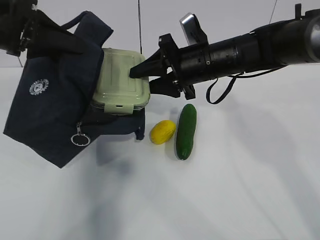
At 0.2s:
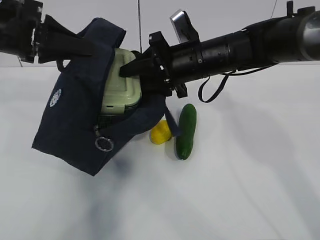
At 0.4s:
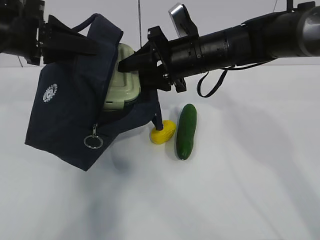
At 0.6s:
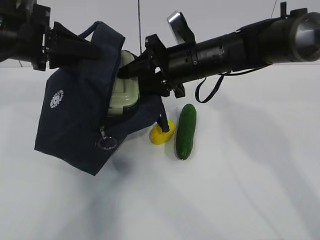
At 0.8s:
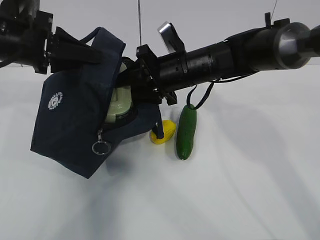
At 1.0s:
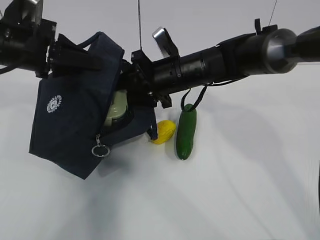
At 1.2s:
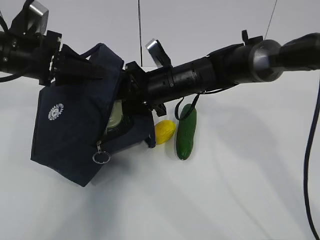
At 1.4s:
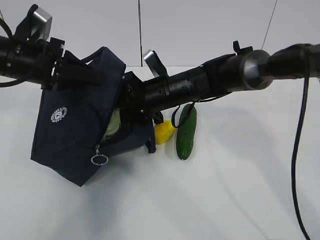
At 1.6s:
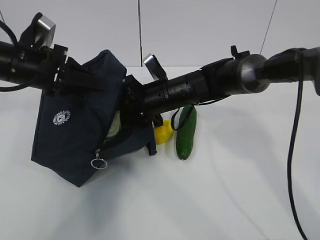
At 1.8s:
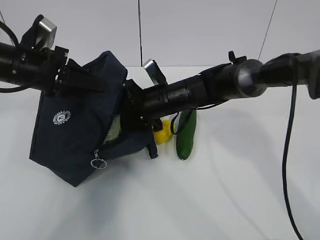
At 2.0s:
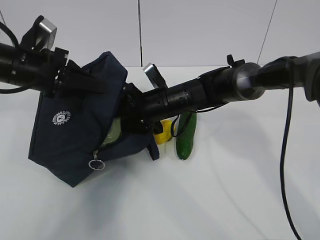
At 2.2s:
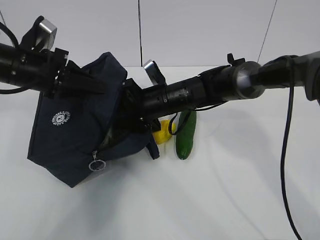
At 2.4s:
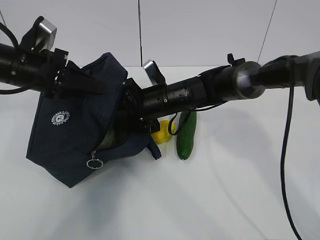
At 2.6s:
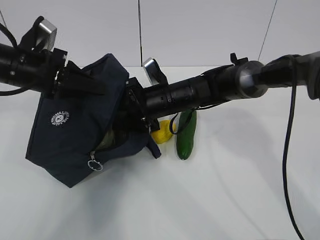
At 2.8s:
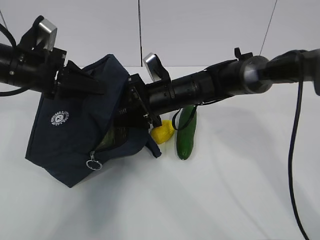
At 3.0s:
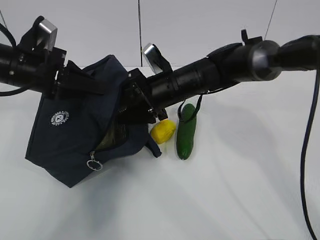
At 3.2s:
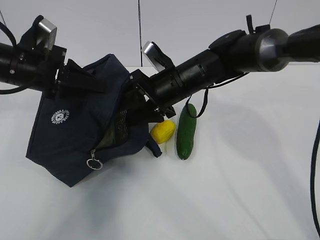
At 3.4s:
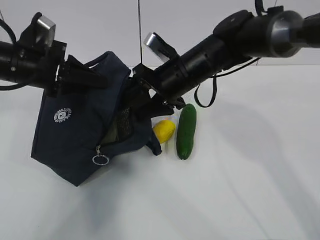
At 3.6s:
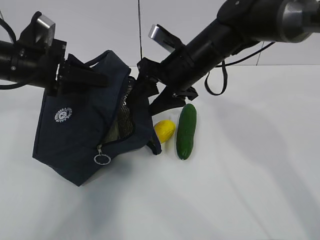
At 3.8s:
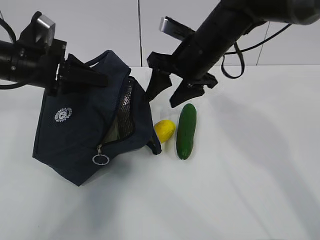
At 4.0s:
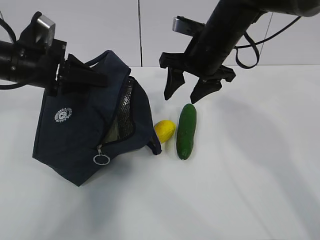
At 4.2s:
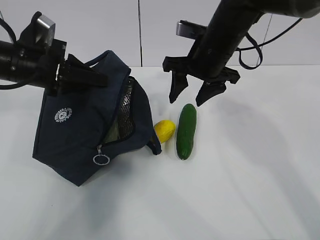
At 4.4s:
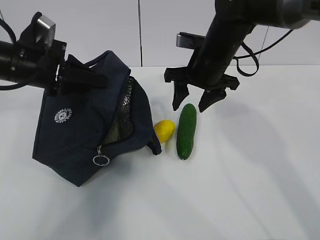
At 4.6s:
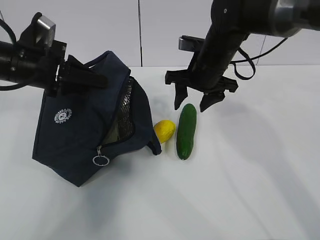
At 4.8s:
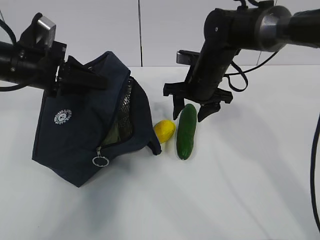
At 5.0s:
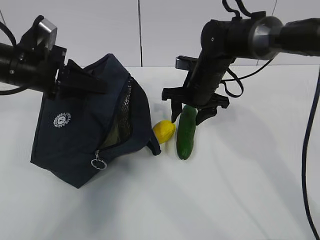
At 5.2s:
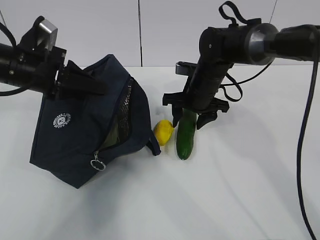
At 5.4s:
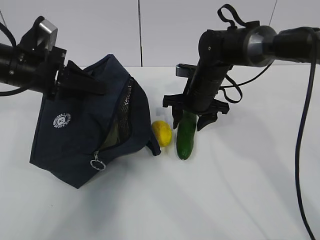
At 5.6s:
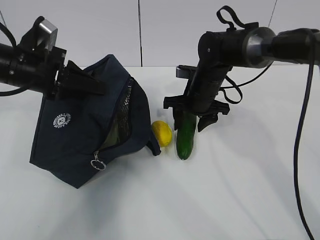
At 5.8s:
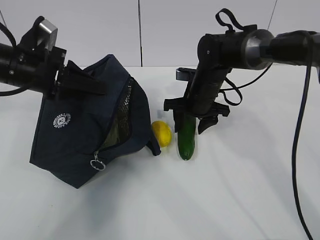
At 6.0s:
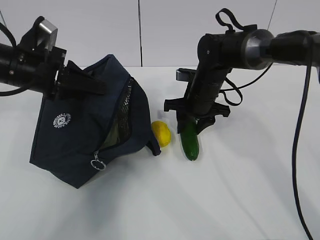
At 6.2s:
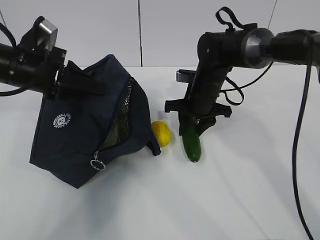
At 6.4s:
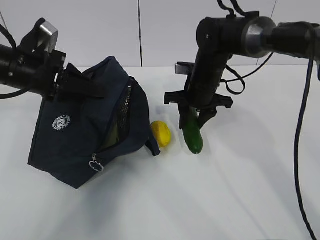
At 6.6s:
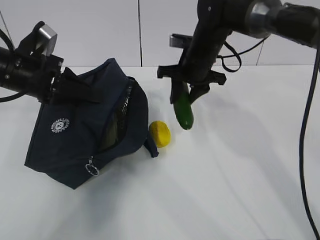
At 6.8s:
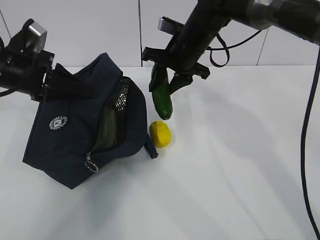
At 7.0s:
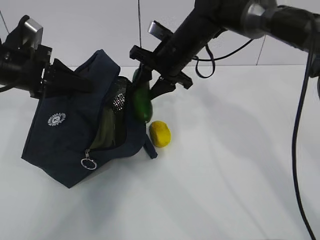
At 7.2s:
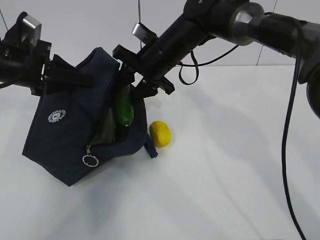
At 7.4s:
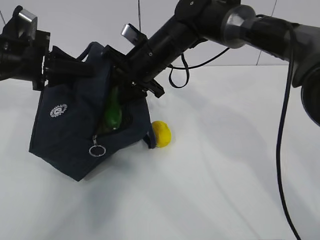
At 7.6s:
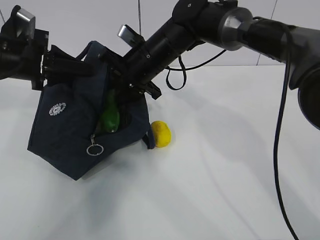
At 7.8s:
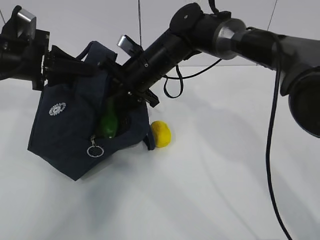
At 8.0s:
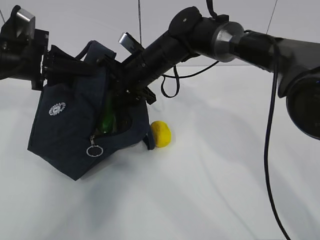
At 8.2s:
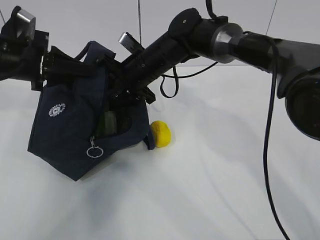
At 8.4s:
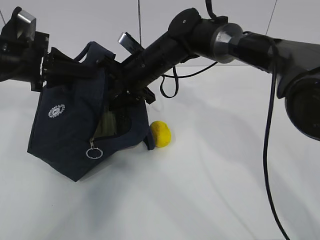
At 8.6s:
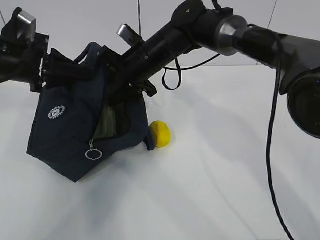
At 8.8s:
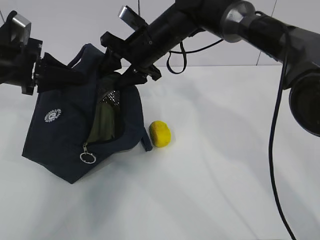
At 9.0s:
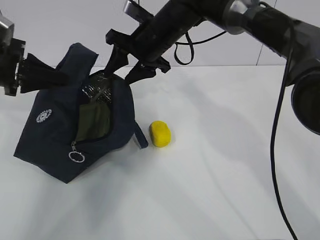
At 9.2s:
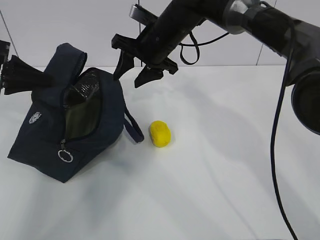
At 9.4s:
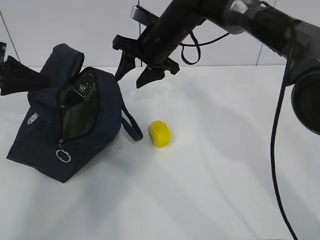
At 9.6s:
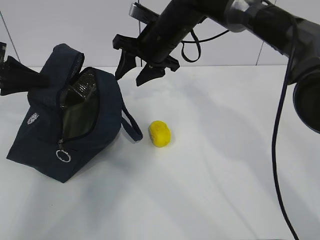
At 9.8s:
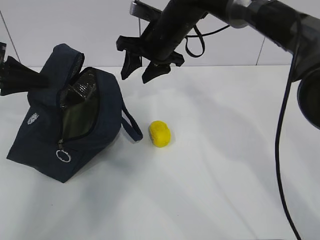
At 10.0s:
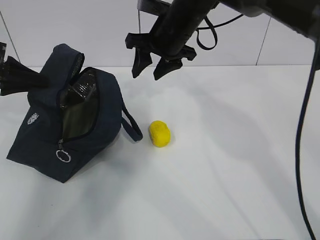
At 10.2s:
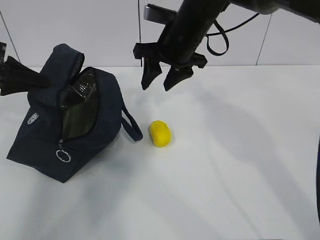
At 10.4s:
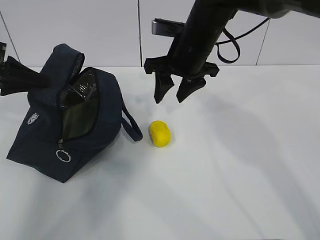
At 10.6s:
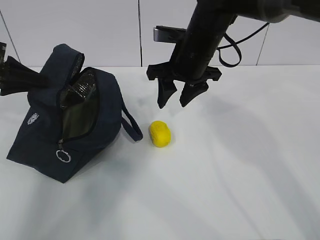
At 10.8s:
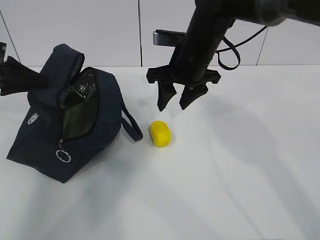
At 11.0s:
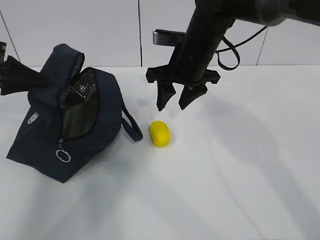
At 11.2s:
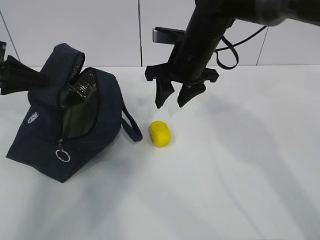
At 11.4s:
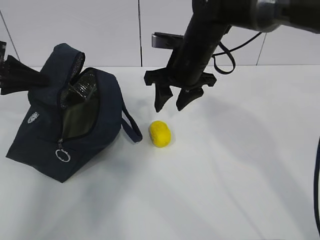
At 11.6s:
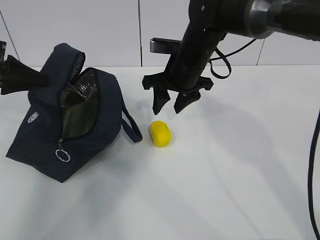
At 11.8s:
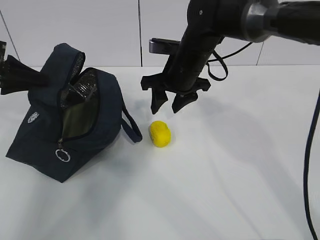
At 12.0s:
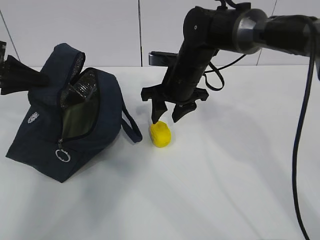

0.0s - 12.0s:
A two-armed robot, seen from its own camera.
Step, 0.0s - 1.8s: Grab the cucumber with your right hand.
Step, 2.0s - 3.6s: Place it into the bag with your right hand.
Step, 3.8s - 8.8s: Grab the lemon with your right hand.
Step, 9.0s - 10.6s: Secure the lunch bag with your left hand.
0.0s - 1.6s: The left gripper moves downward, some 10 cm; the right gripper is displaced downward and to the left by approximately 10 cm.
1.6s - 3.0s: There are only small adjustments of the grippers.
3.0s - 4.4s: The right gripper shifts approximately 10 cm to the right and upward.
4.4s - 6.0s: The right gripper shifts about 10 cm downward.
6.0s - 7.6s: The right gripper heads to the left and upward, covering about 15 cm.
9.0s - 10.4s: The right gripper heads to the right, covering some 5 cm.
10.4s - 12.0s: The right gripper goes about 5 cm downward.

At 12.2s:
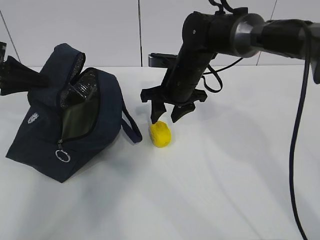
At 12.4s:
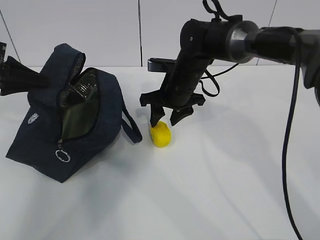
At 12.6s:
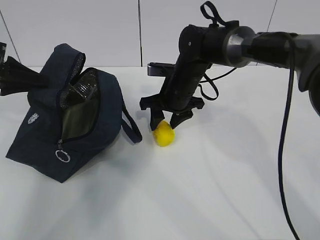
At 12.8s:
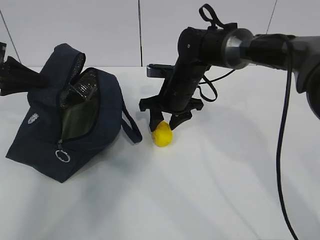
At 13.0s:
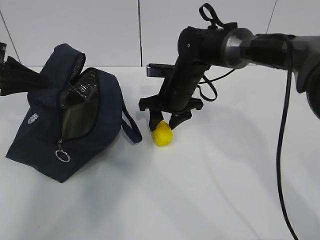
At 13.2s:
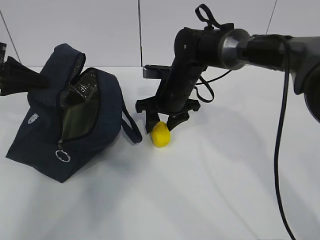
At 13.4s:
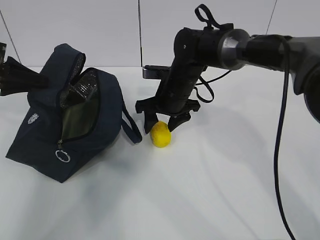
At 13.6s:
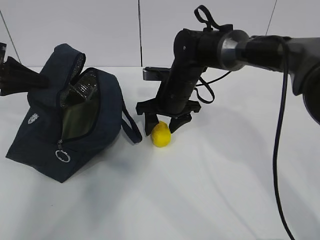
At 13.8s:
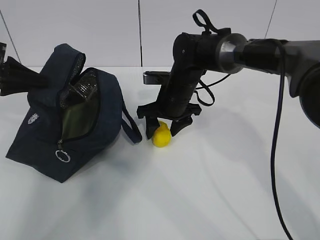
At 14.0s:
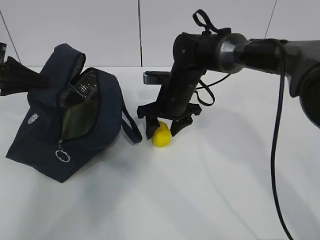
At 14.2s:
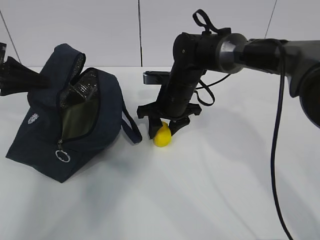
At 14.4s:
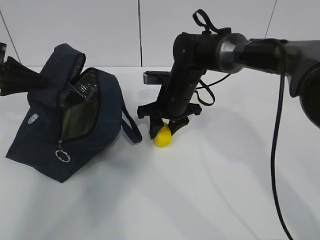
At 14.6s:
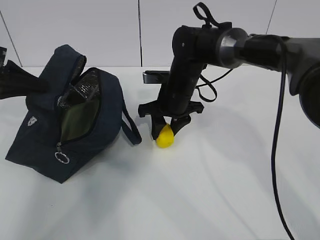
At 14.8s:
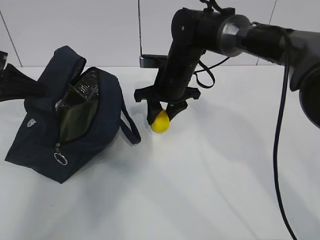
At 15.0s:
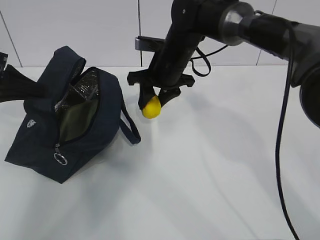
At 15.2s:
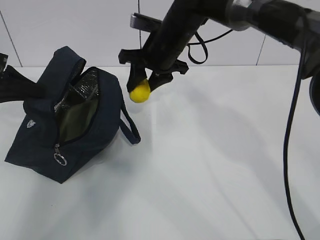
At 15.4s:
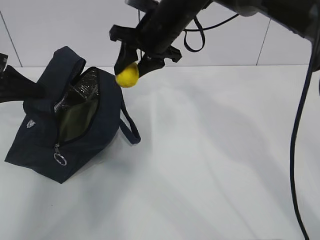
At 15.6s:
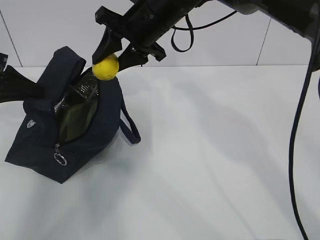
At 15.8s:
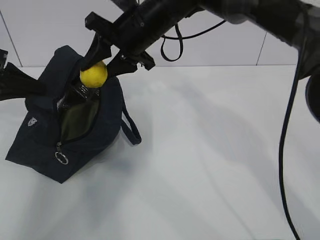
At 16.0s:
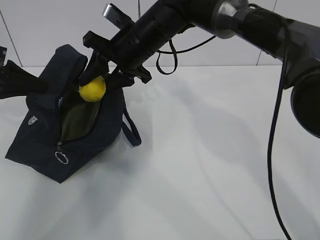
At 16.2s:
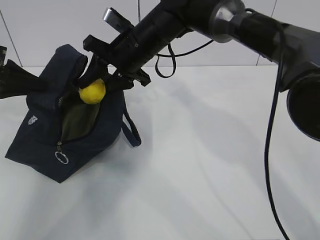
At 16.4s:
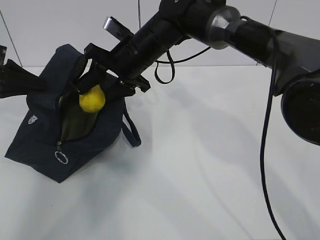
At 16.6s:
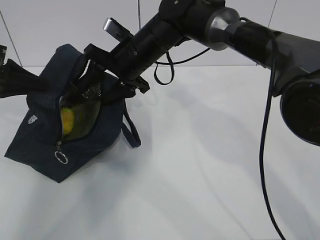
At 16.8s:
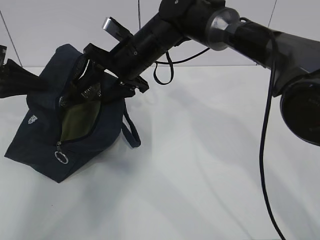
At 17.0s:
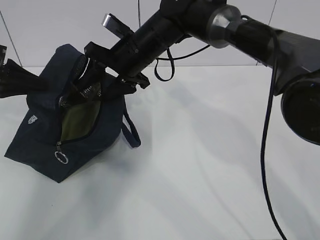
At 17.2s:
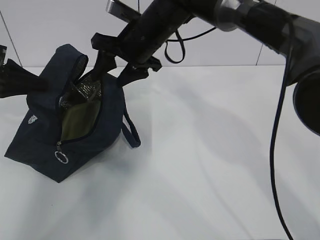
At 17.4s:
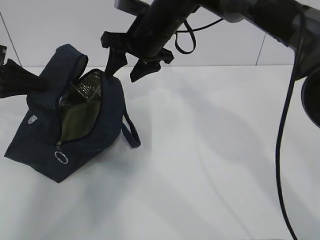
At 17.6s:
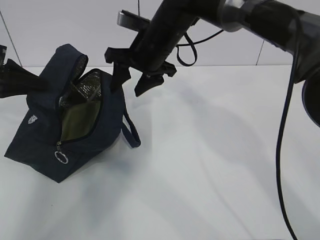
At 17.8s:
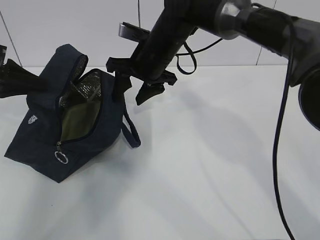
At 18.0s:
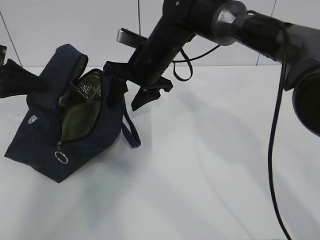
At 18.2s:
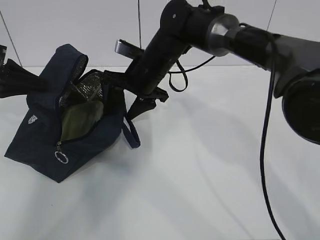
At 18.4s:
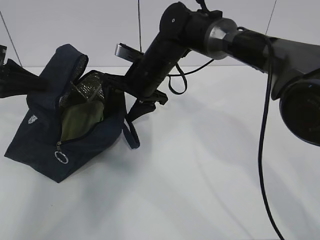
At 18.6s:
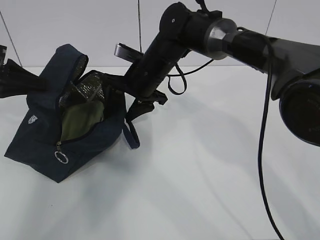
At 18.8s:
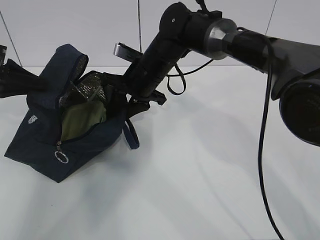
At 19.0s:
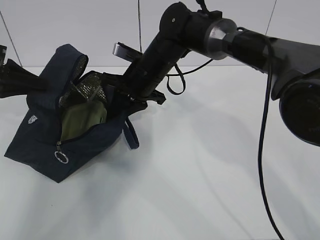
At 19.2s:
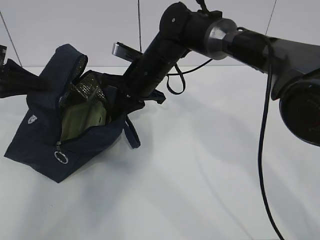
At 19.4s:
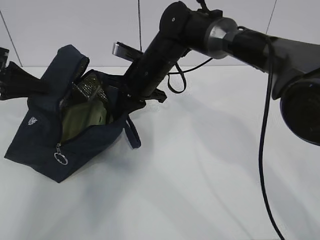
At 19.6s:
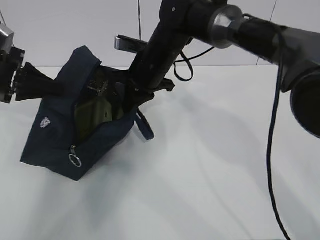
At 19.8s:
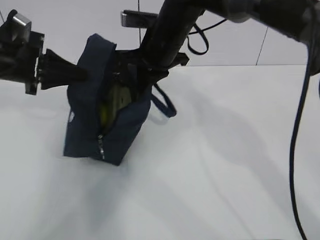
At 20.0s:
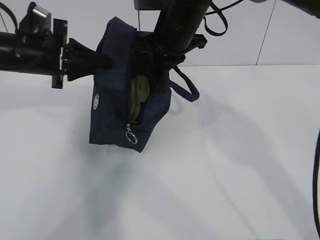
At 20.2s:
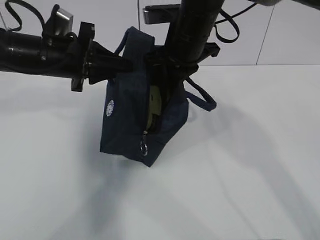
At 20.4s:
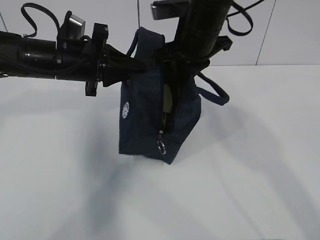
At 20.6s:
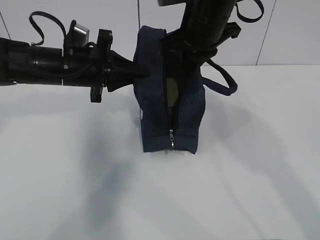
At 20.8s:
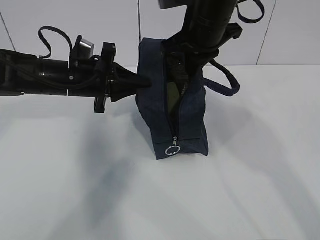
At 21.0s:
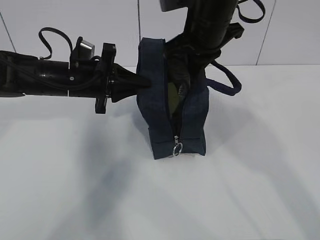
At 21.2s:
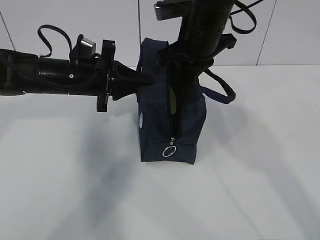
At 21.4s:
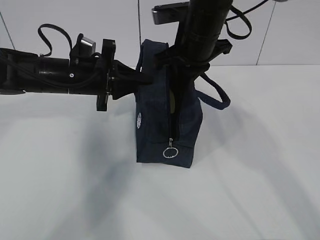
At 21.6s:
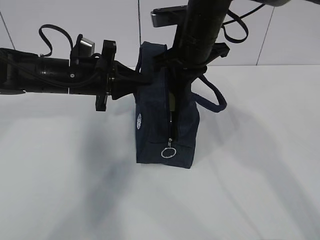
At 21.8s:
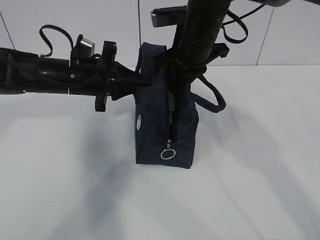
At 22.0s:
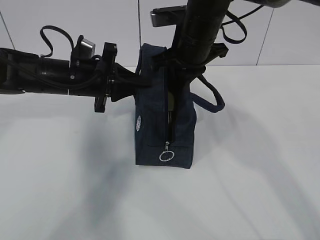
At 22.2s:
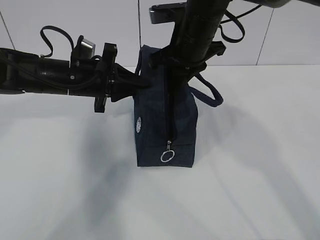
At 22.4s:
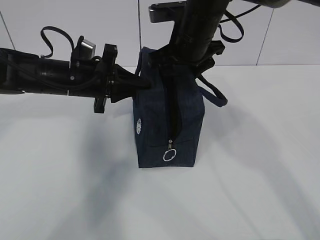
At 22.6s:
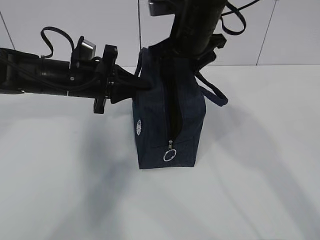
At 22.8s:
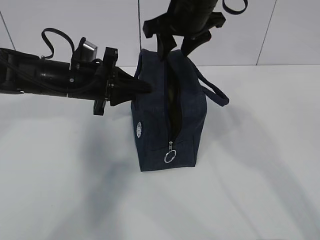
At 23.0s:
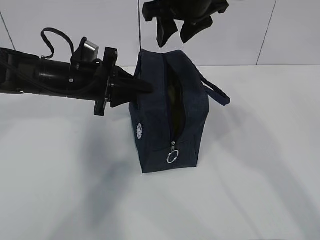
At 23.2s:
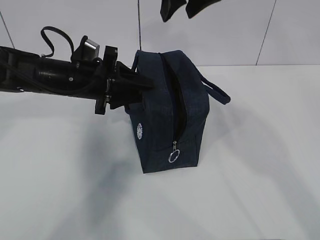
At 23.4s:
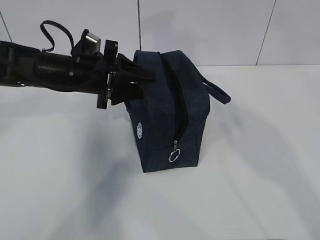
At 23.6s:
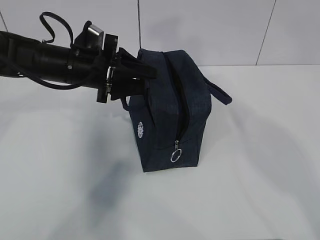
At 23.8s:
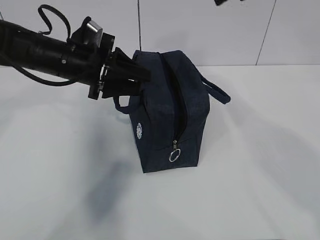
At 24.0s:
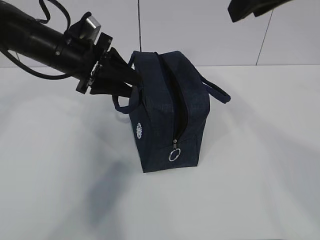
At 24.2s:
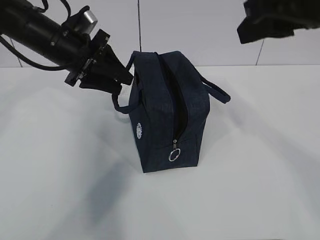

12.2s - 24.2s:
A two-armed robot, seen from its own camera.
Step, 13.0s - 15.8s: Move the lunch bag to the right.
12.2s - 13.8s: There are only small adjustments of the grippers.
13.8s - 15.2s: The right gripper is displaced upward by approximately 10 cm.
15.2s - 16.6s: The right gripper shifts by roughly 5 cm.
18.2s - 19.8s: The right gripper moves upward, roughly 5 cm, and closes up, while the left gripper moves to the right, approximately 5 cm.
19.8s - 21.2s: The right gripper travels to the right by some 5 cm. Meanwhile the left gripper goes approximately 10 cm to the right.
21.2s - 22.6s: The right gripper opens its fingers.
22.6s - 24.2s: The left gripper shifts roughly 5 cm upward, and opens its fingers; the right gripper shifts approximately 20 cm backward, upward and to the right, and closes.
